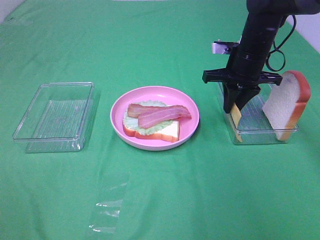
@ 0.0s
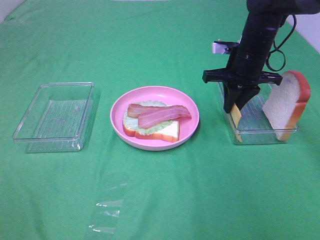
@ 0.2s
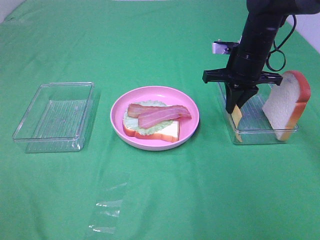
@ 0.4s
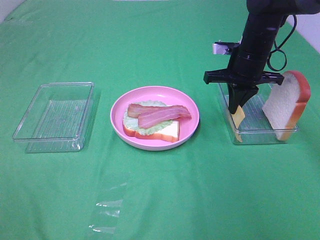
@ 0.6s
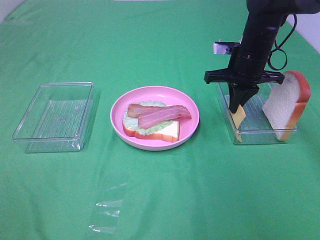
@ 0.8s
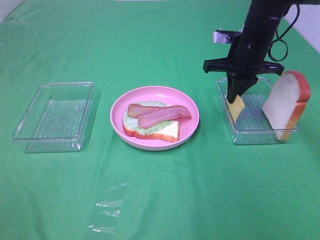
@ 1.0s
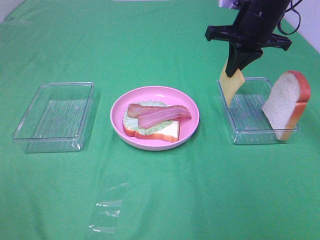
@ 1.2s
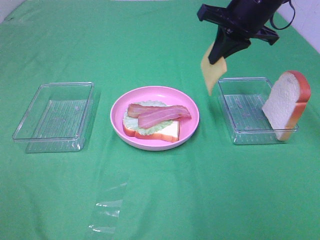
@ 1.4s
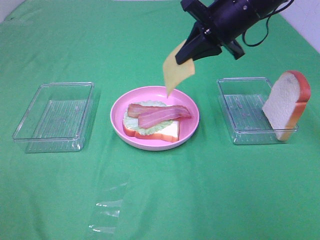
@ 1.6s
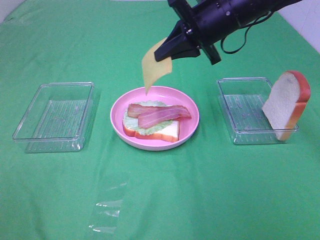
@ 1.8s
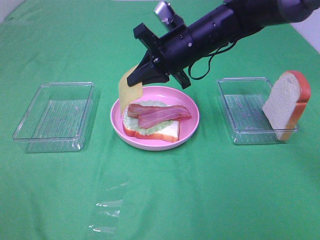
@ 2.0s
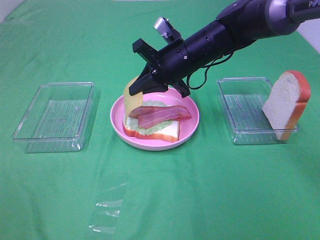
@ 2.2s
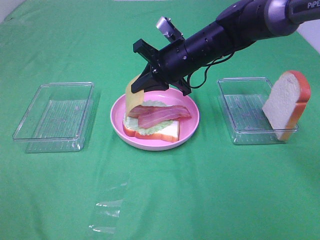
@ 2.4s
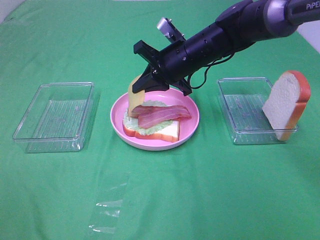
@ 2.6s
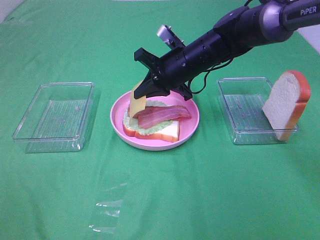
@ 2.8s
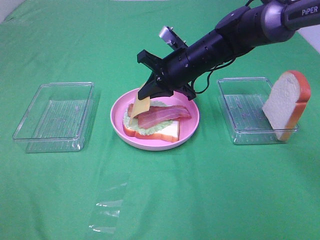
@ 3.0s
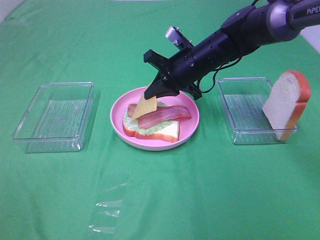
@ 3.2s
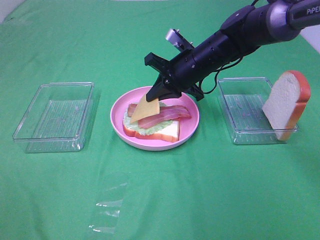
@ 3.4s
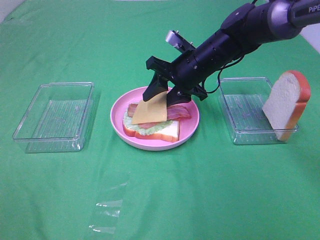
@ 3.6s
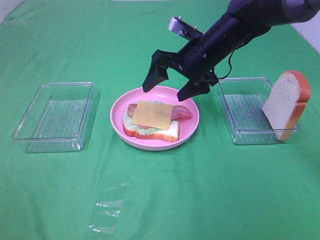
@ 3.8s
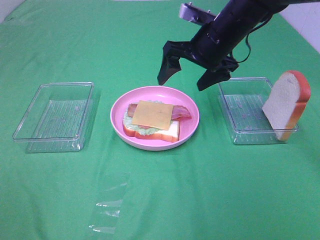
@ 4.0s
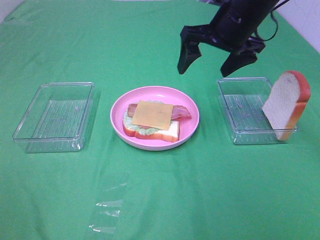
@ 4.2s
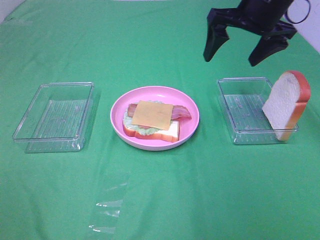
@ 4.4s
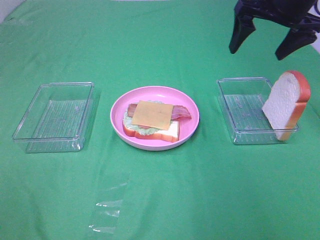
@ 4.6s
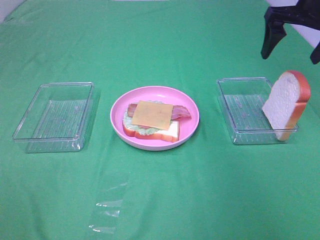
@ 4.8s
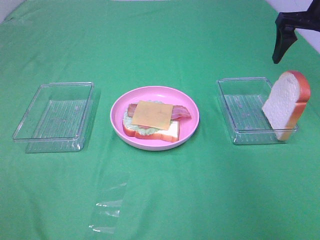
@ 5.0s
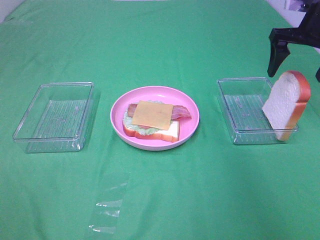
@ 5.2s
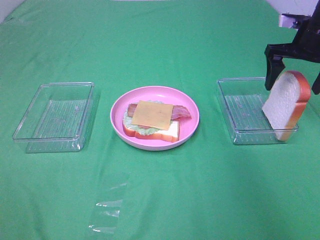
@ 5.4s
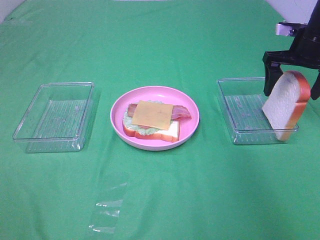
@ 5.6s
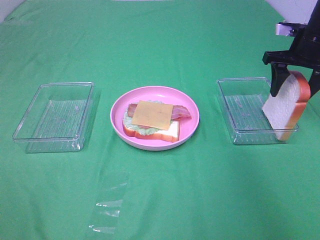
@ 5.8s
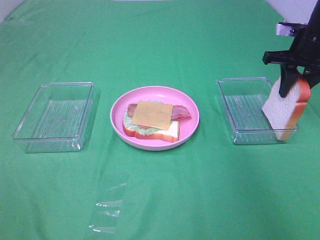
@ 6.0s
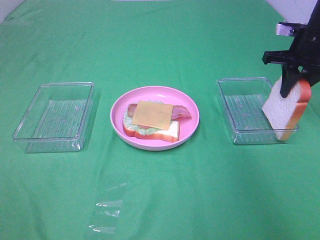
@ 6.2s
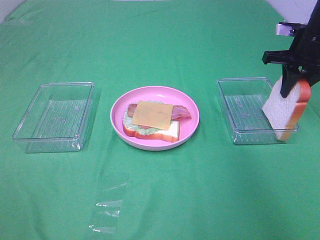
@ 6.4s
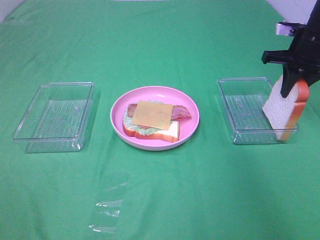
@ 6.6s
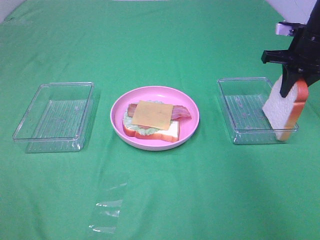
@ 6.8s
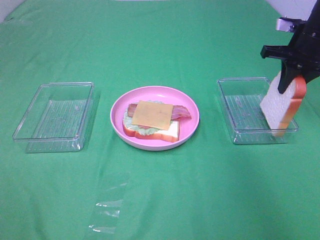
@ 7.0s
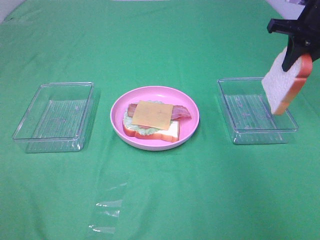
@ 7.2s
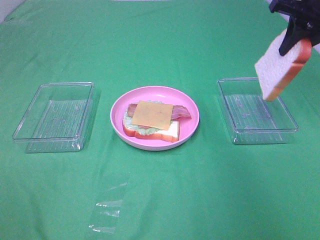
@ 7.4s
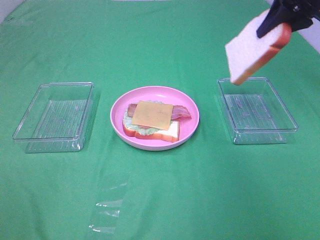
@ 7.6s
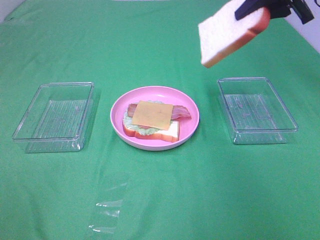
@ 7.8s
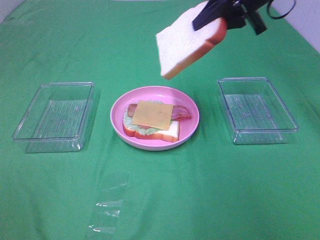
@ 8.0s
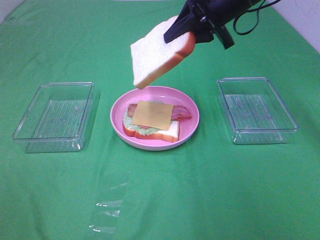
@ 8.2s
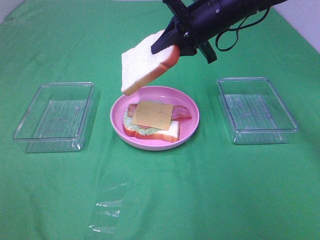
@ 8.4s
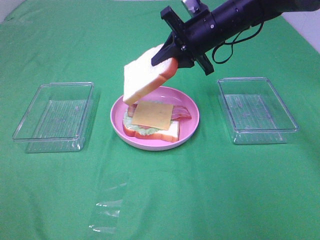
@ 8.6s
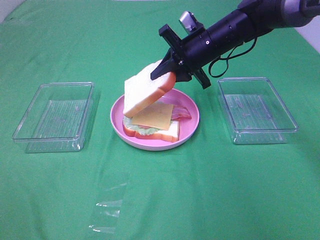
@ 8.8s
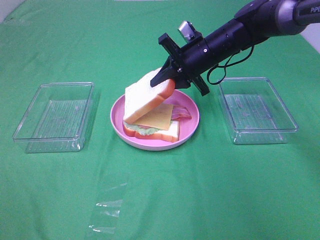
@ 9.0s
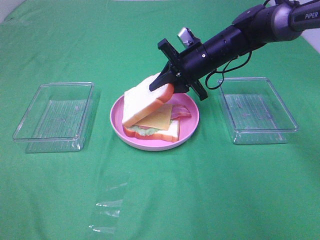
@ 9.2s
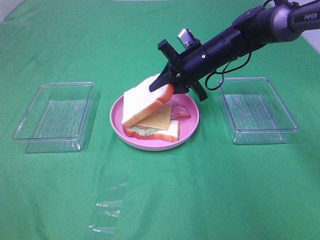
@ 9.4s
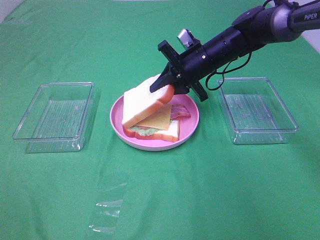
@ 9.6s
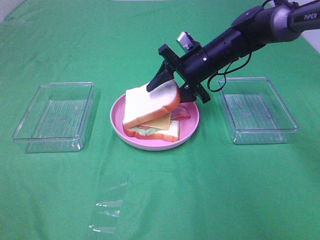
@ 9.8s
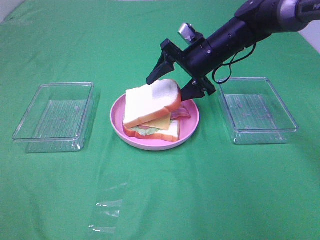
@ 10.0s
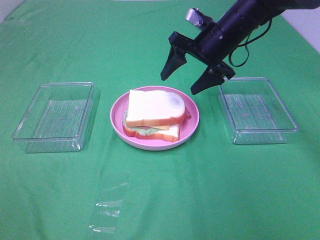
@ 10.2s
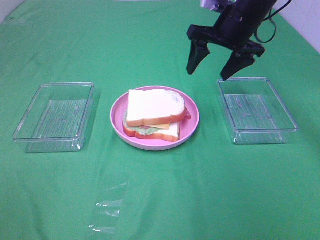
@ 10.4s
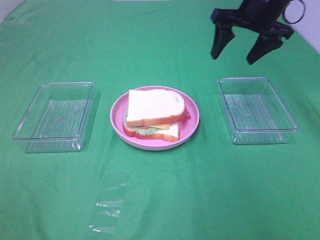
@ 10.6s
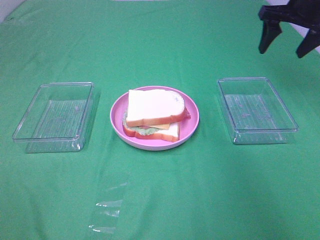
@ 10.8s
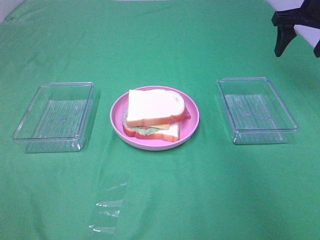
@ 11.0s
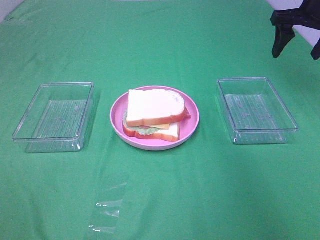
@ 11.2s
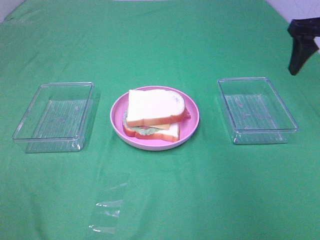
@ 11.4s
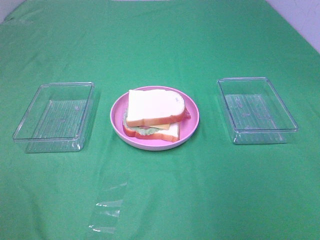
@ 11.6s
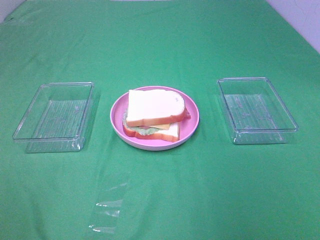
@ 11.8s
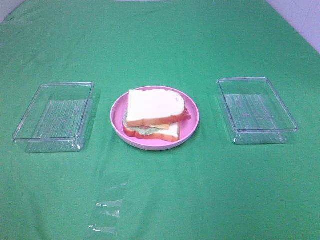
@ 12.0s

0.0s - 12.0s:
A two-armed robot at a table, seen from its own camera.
Task of the whole recording: Make sandwiches.
Step, 0.8s - 3.8s: Right hand:place the cheese slice on top of the bacon.
Step, 4.0s - 6.2s: Right hand:grab the bread slice.
Step, 6.4s - 10.2s: Right hand:place the bread slice on the cheese slice.
0.0s - 1.6s: The right gripper moves upward, approximately 10 cm.
1.6s - 3.0s: The right gripper is displaced downward and to the left by about 15 cm.
3.0s - 4.4s: The right gripper is displaced upward and to the right by about 15 cm, and opens.
4.4s - 6.0s: The right gripper moves to the right and downward, some 15 cm, and closes up.
6.0s - 7.6s: The right gripper shifts roughly 10 cm upward.
7.6s - 9.0s: The right gripper heads downward and to the left, covering approximately 20 cm.
9.0s - 10.4s: The right gripper moves upward, roughly 10 cm, and opens its fingers.
10.4s - 12.0s: The right gripper travels backward by some 35 cm.

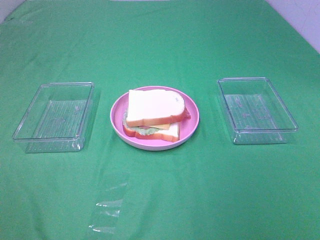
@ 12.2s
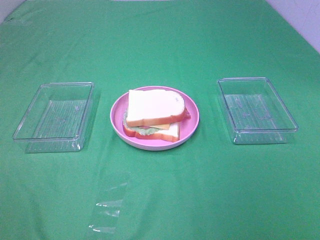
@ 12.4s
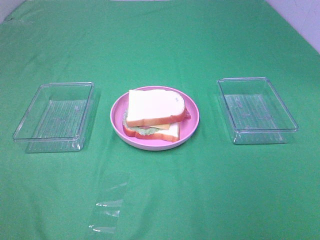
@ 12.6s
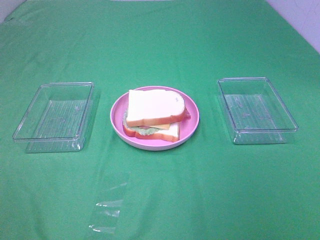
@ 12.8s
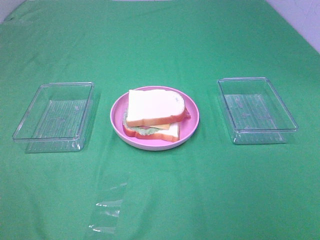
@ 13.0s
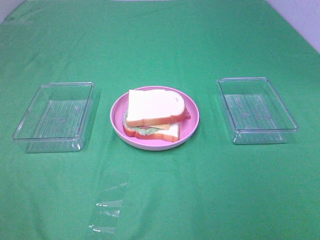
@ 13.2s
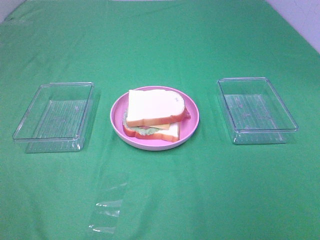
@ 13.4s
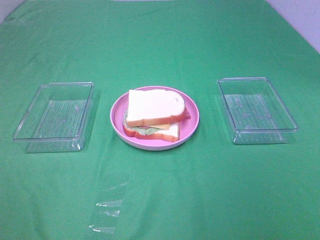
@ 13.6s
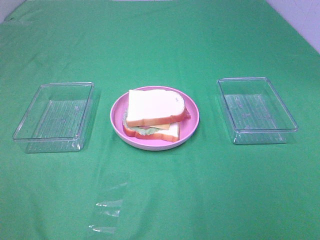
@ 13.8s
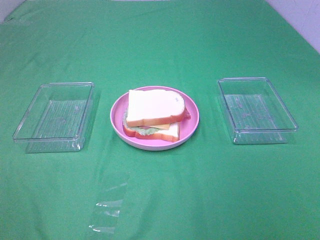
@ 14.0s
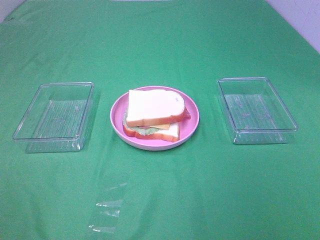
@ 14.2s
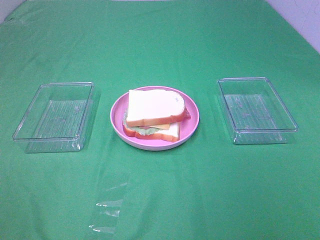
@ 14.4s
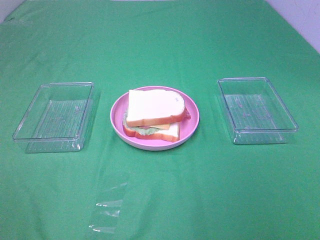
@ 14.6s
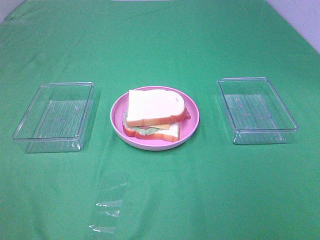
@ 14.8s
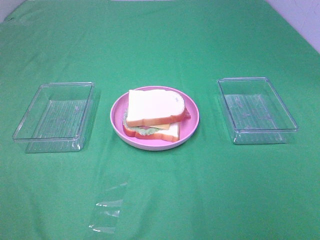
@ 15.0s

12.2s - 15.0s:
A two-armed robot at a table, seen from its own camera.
Task of the whole recording: Make sandwiches.
13.6s - 15.0s: Both grippers stay about where they are.

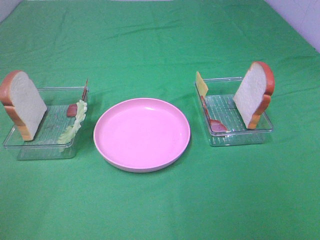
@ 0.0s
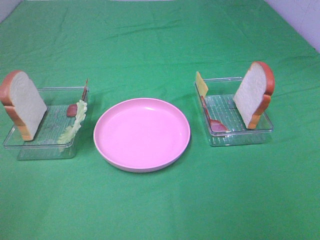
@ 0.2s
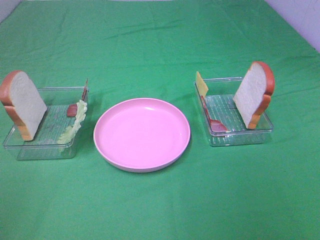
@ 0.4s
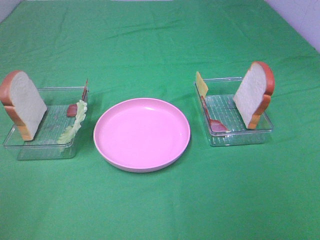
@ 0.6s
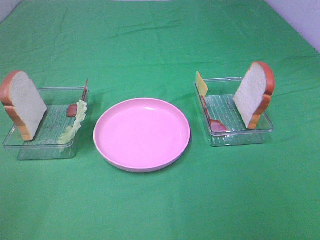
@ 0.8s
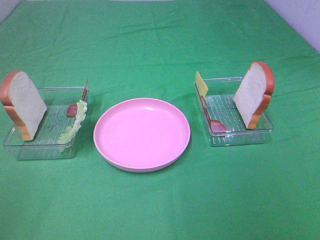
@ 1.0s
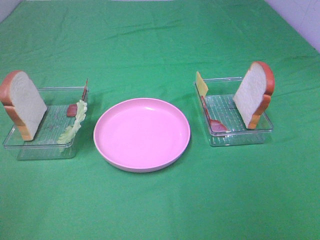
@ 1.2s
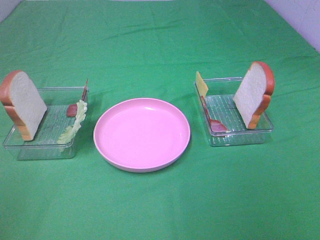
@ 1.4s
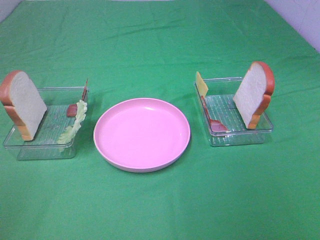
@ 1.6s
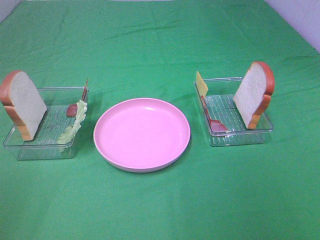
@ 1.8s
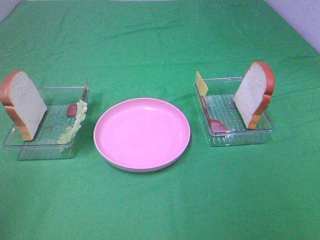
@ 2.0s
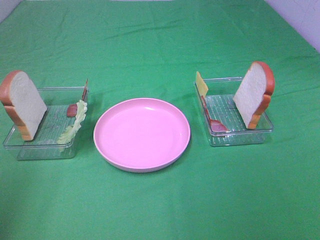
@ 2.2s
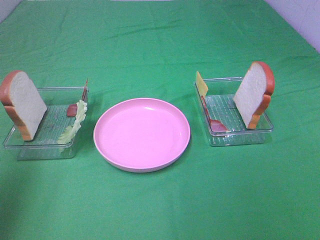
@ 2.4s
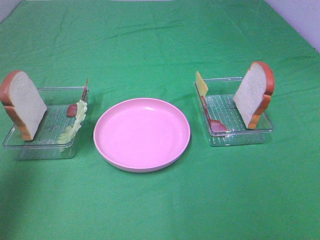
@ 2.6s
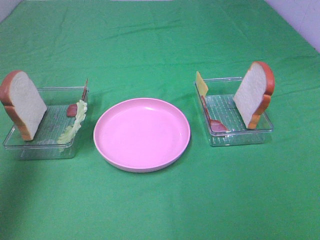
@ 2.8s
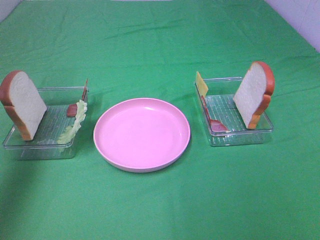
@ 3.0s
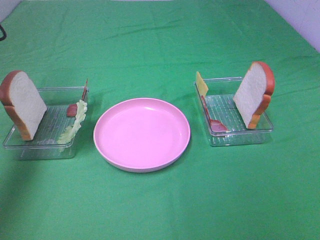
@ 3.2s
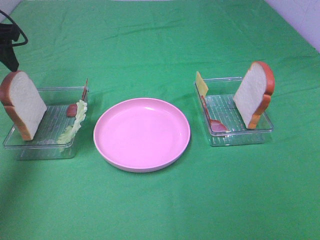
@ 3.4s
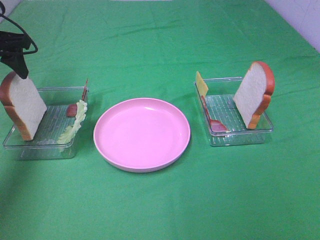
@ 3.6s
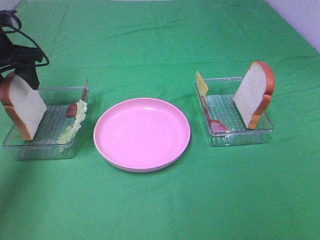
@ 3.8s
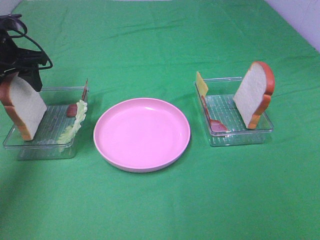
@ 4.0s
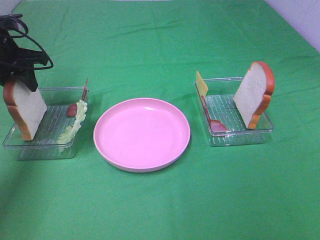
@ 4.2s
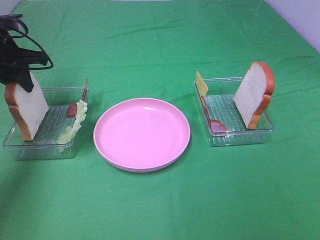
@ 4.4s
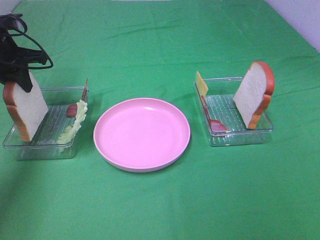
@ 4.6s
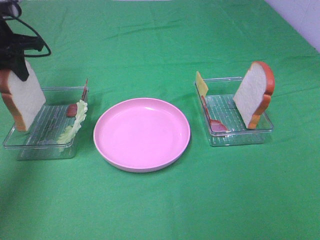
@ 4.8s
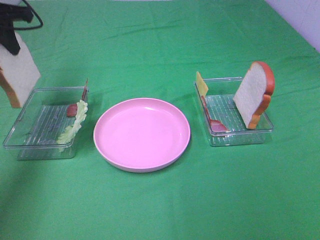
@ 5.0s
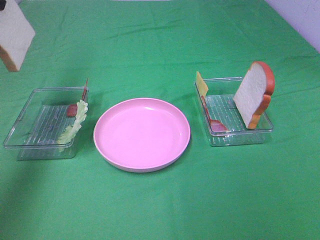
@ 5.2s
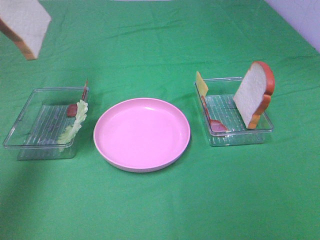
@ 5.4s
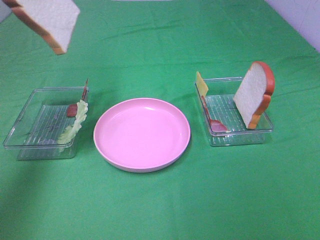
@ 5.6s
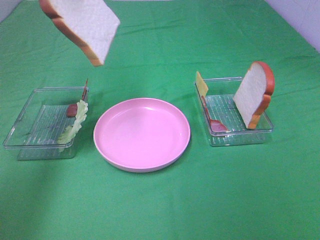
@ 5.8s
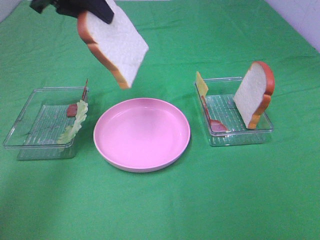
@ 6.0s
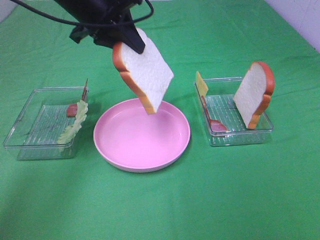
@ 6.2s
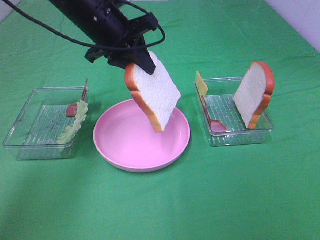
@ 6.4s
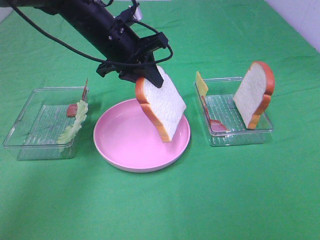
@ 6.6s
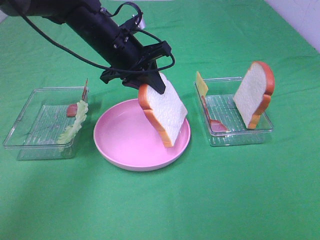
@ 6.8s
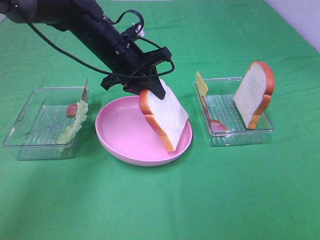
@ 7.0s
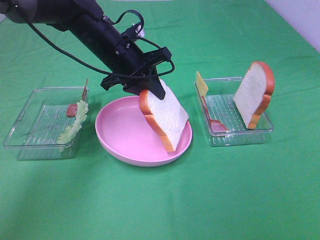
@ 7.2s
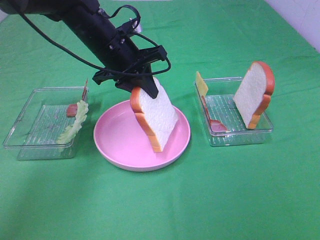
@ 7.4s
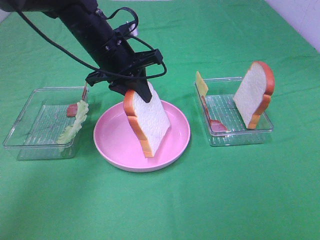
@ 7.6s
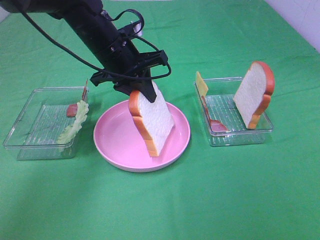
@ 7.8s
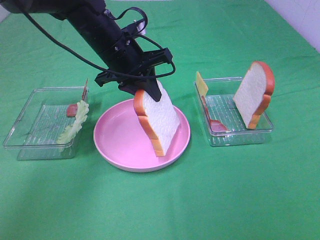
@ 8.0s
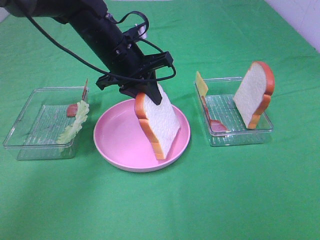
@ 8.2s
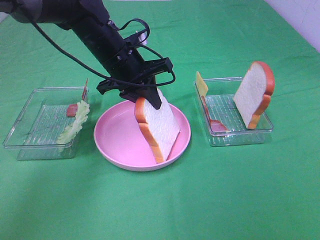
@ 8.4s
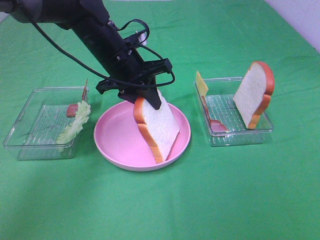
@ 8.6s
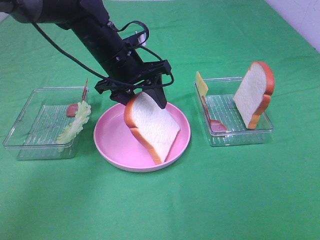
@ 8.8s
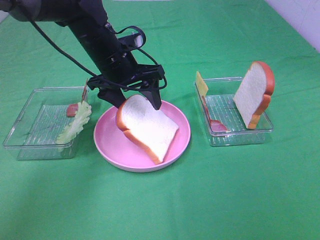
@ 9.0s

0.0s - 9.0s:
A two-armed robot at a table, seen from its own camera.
Task of the whole recording: Make sandwiches.
Step, 0.0s - 4.4s: Left hand:grab the bread slice.
0.0s - 1.6s: Both grippers stay put.
1.6s - 3.0s: The left gripper travels forward by roughly 30 cm.
3.0s - 4.4s: The left gripper moves forward and downward, about 15 cm, and closes.
4.4s - 6.0s: The left gripper travels to the right and upward by some 20 cm.
6.0s - 7.6s: The left gripper goes roughly 15 cm downward and to the right.
7.6s - 9.0s: The left gripper opens up.
